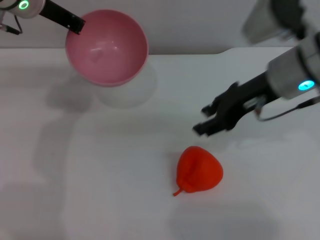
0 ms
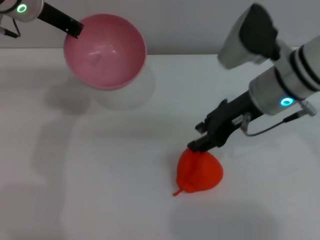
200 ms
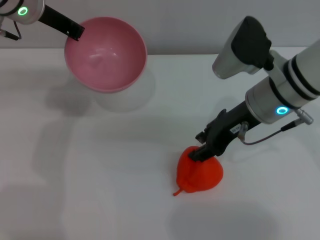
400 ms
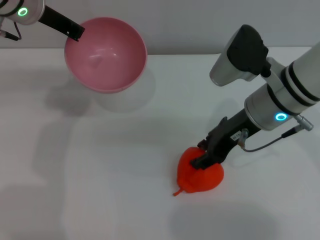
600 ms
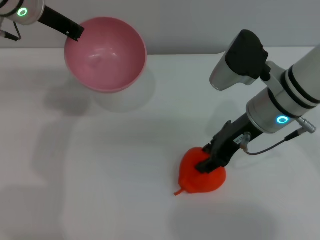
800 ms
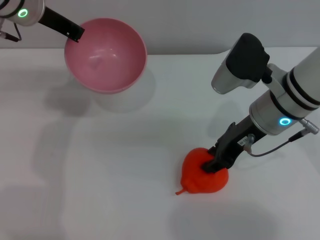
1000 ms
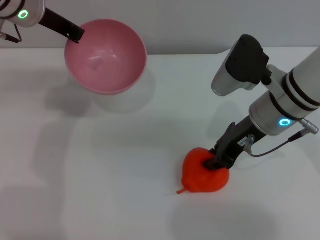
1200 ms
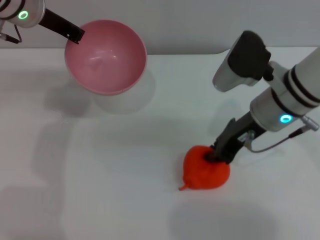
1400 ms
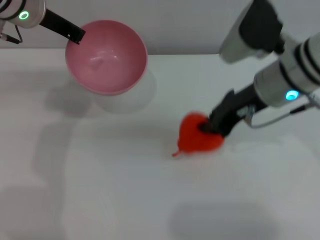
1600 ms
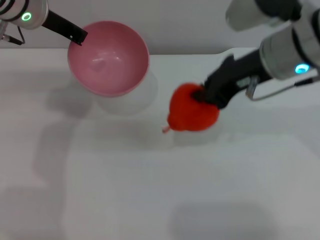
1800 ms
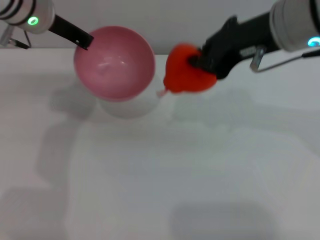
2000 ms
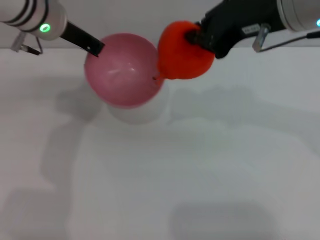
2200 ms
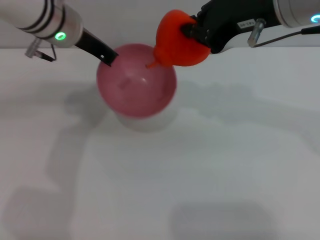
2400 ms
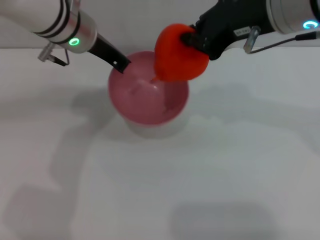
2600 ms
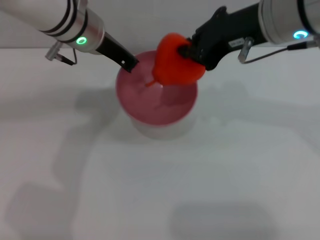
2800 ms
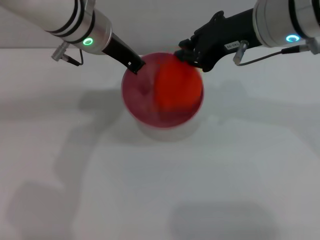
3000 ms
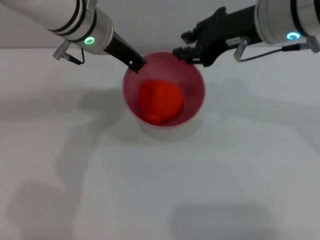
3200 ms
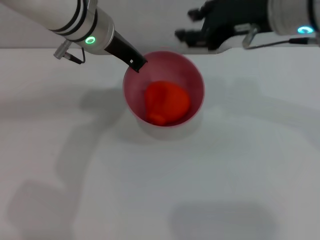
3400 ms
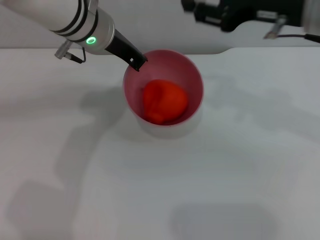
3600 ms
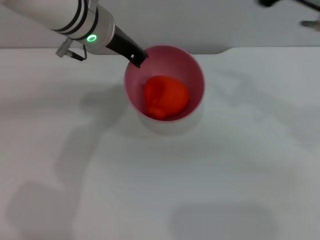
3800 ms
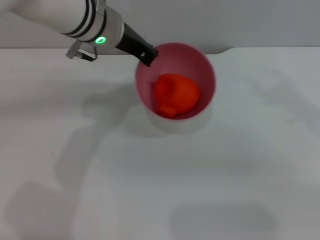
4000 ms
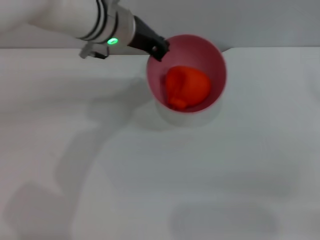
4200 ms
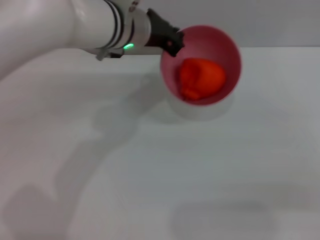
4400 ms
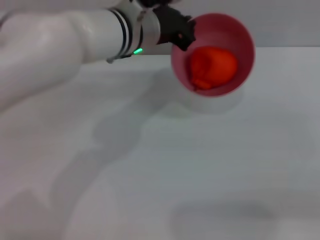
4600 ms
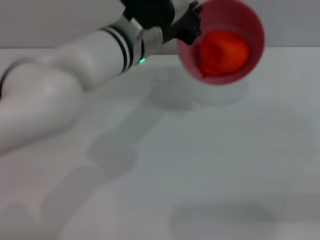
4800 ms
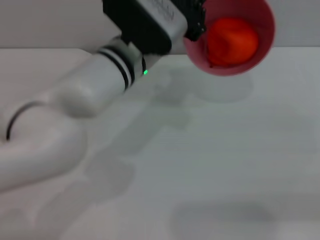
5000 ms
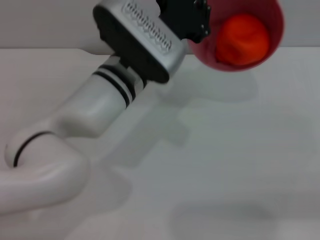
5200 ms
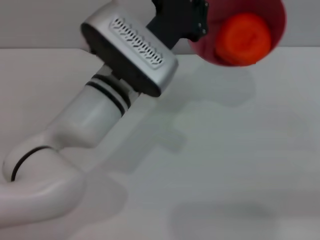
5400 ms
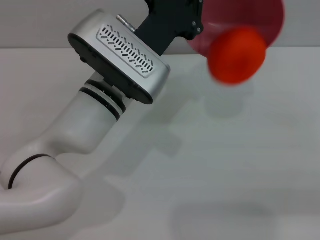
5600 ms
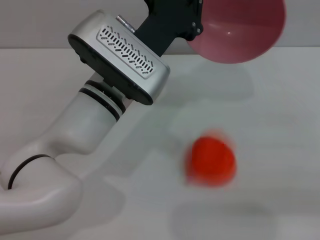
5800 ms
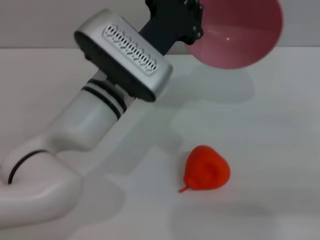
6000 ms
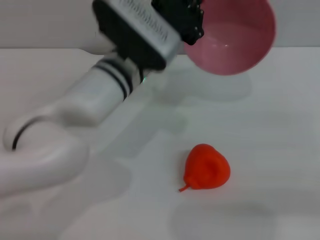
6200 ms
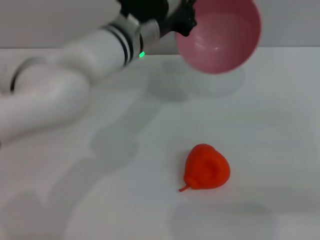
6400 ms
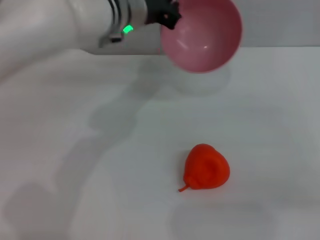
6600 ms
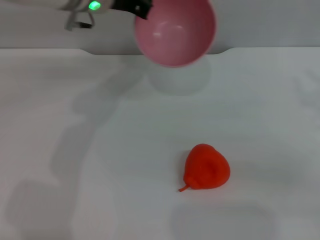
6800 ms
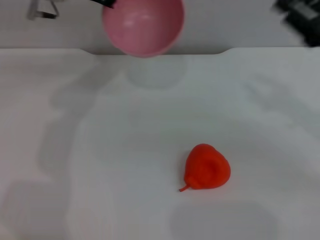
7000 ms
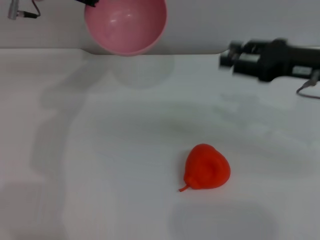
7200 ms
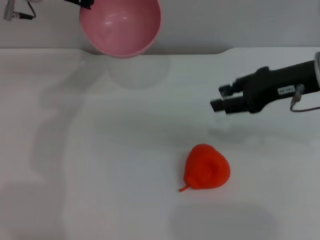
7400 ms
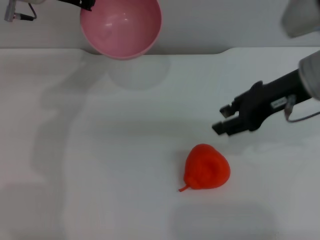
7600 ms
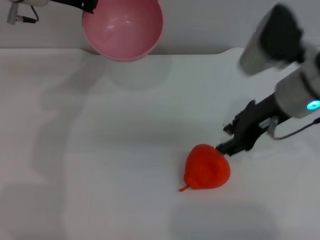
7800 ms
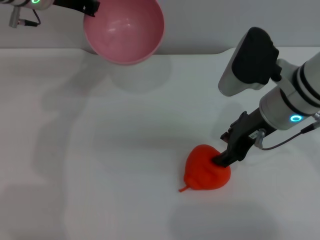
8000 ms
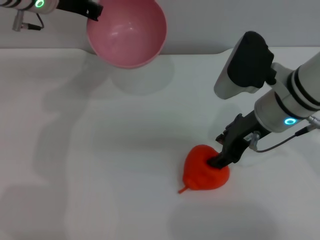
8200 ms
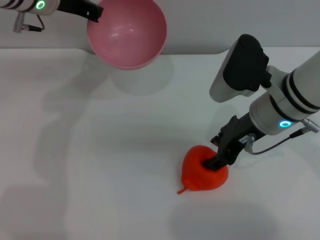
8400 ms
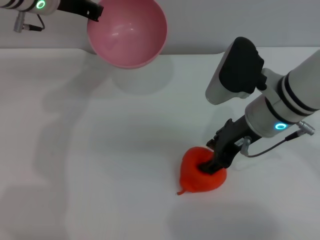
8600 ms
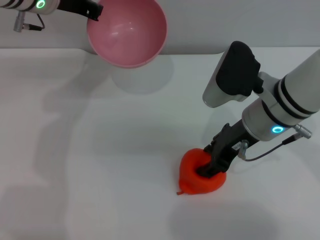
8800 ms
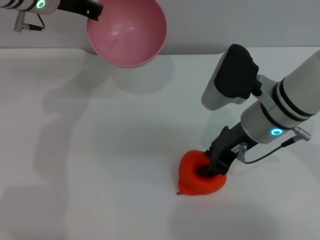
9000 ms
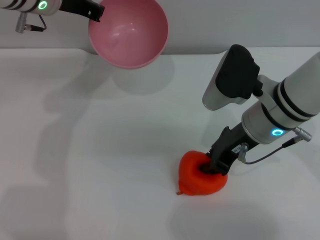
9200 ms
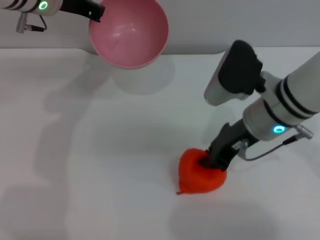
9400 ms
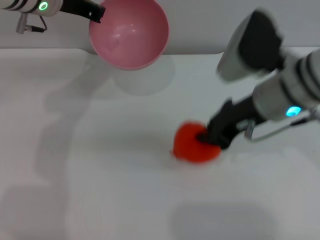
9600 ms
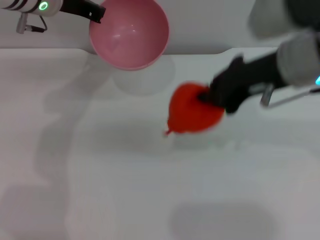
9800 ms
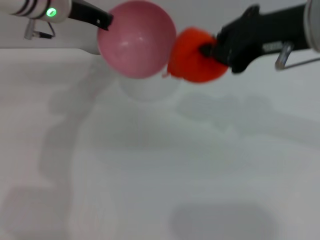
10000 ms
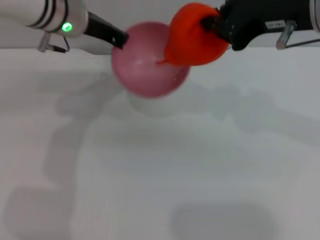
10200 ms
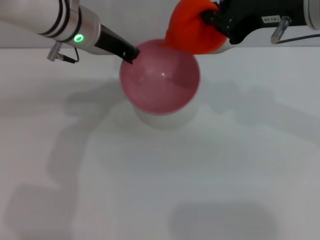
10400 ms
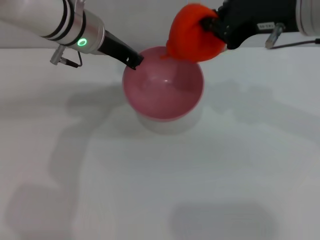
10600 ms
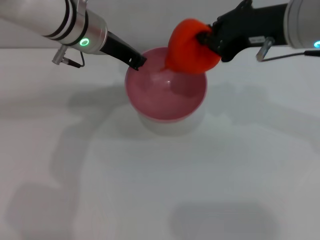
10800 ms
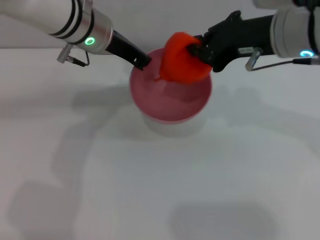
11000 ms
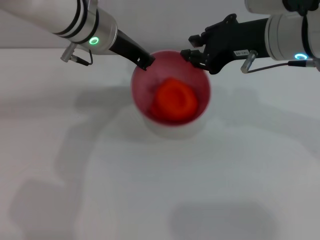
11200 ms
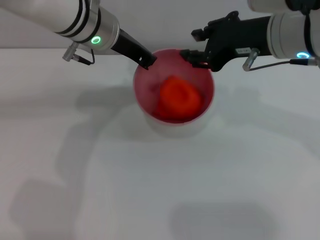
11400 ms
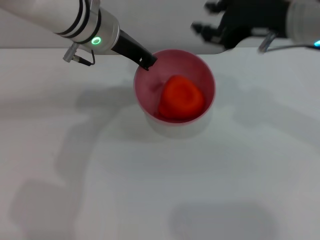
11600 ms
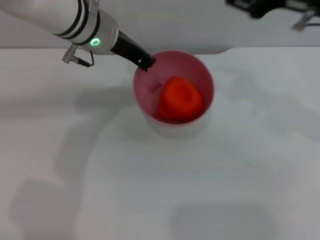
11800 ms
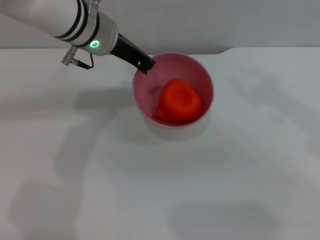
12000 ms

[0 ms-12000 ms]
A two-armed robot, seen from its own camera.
Task of the whole recording: put the orange into the pink bowl and pour it out repeatedly.
Step, 0 ms to 1800 ms: Pick up the orange with the right gripper.
Step, 2000 ms to 3400 ms: Place the orange into the bowl.
Step, 3600 ms to 6000 ms: Pour the orange out of the bowl.
Step, 6200 ms to 9600 ms: Pick up the orange with the right gripper.
Step, 9800 ms to 11400 ms: Place the orange into the bowl.
0 ms to 1600 ms: The right gripper closes up.
1600 ms to 3000 ms: The left gripper is displaced to the right by about 10 cm. Meanwhile the right gripper shifts roughly 5 cm upward.
3000 ms to 4400 ms: The left gripper shifts by about 5 cm, while the right gripper travels to the right, downward and backward by about 25 cm, and opens.
4400 ms to 6000 ms: The left gripper travels backward by about 10 cm.
6000 ms to 7600 ms: The right gripper is displaced to the left and forward by roughly 20 cm. The left gripper travels to the left, forward and upward by some 20 cm.
7600 ms to 9000 ms: The right gripper travels downward and to the left by roughly 10 cm.
9000 ms to 10400 ms: The right gripper moves upward, about 15 cm, and closes; the left gripper heads to the right, covering approximately 5 cm.
10400 ms to 12000 ms: The right gripper is displaced to the right by roughly 10 cm, and opens.

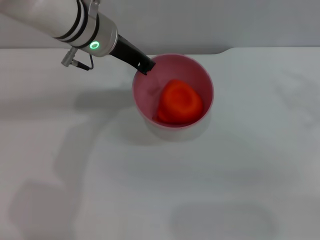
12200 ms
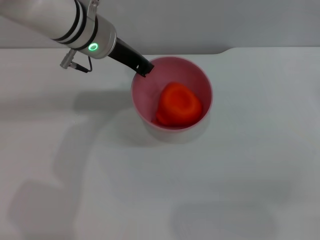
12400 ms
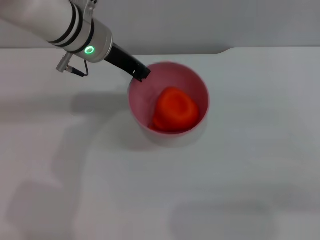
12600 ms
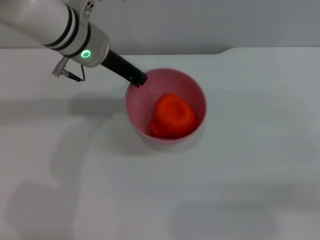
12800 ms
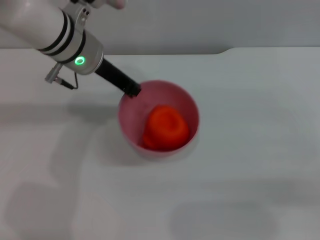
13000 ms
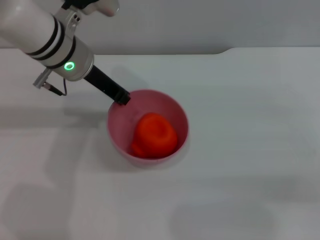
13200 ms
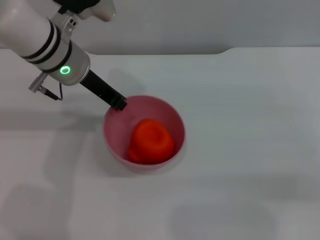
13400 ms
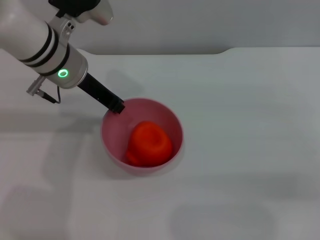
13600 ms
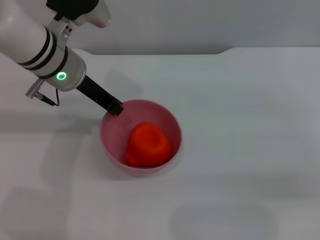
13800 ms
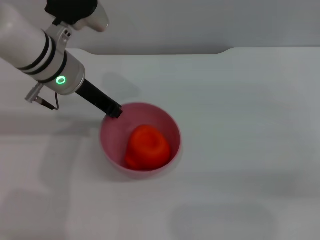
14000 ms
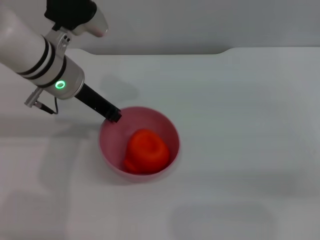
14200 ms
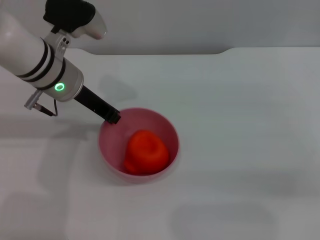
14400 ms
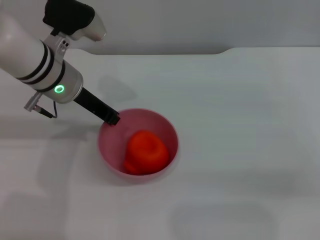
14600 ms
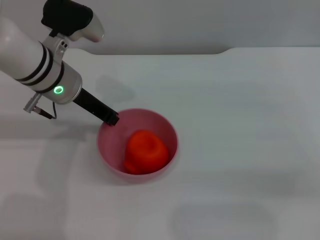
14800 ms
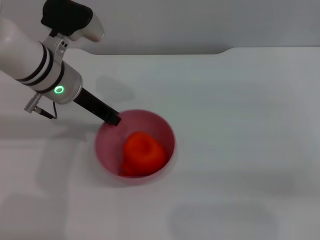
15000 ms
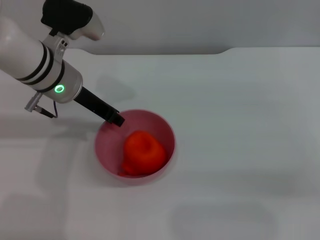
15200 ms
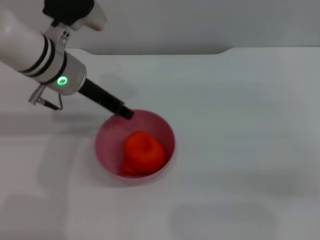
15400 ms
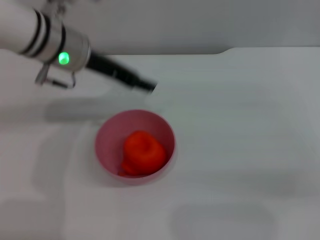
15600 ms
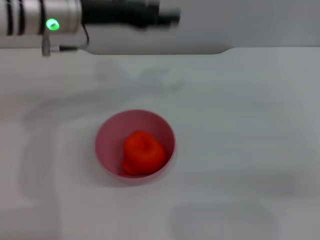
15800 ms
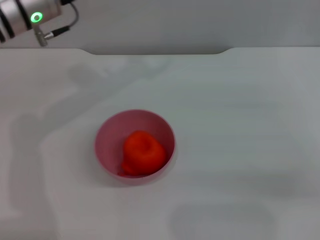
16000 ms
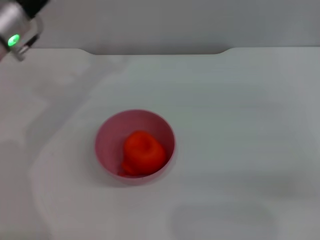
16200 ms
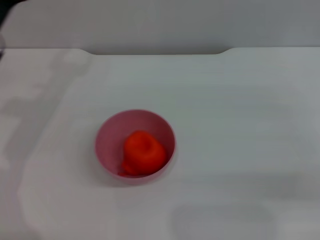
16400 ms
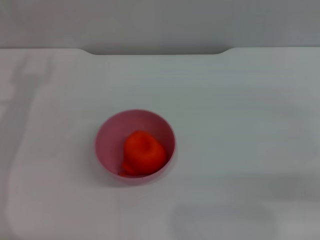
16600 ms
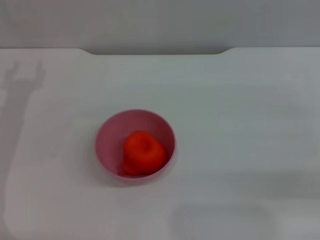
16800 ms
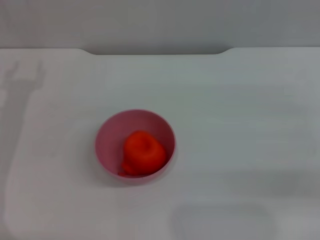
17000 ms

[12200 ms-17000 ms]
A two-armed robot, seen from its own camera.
Task of the whole recording: put the orange into the pink bowl and pour it out repeatedly.
Step, 12200 ms to 15400 ms: Place the bowl on the table.
12200 ms to 13800 ms: The left gripper ends up approximately 5 cm from where it was. The right gripper goes about 10 cm downward and to the right.
13800 ms to 15400 ms: There are only small adjustments of the grippers.
15400 ms to 17000 ms: The left gripper shifts roughly 15 cm to the left, and opens its fingers.
